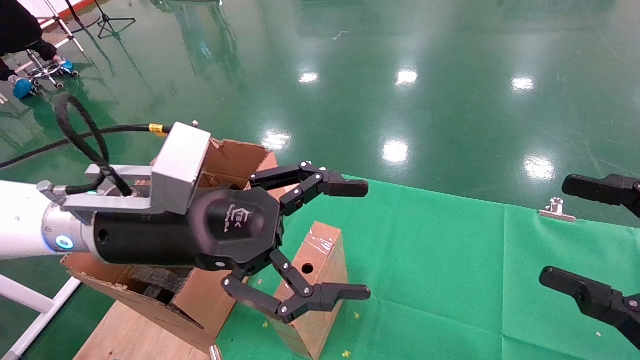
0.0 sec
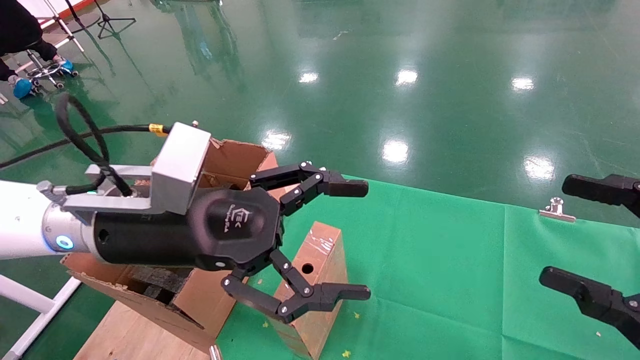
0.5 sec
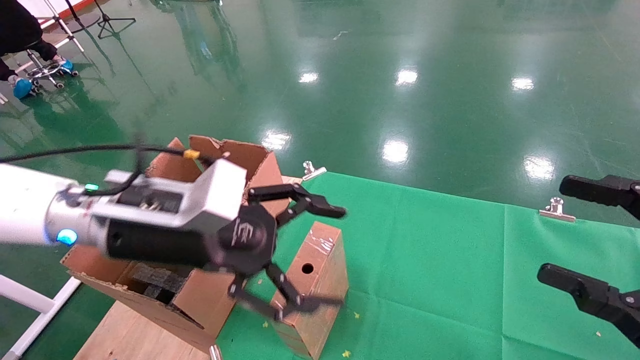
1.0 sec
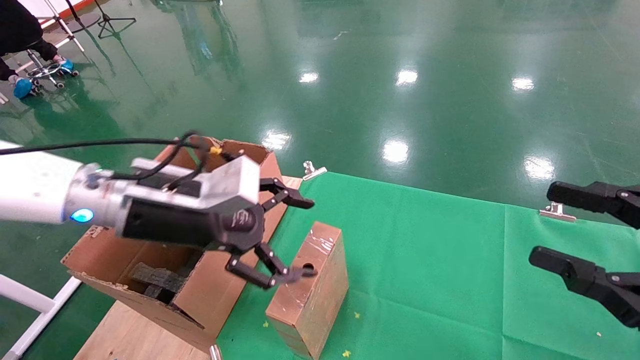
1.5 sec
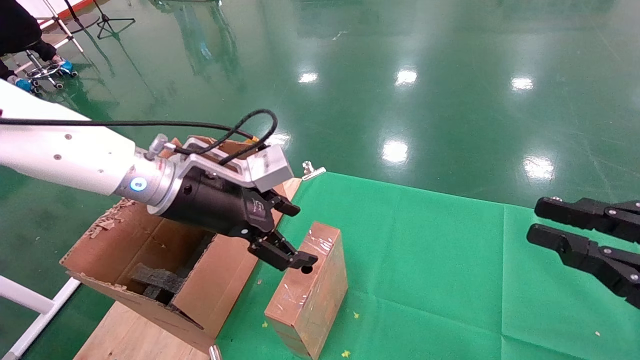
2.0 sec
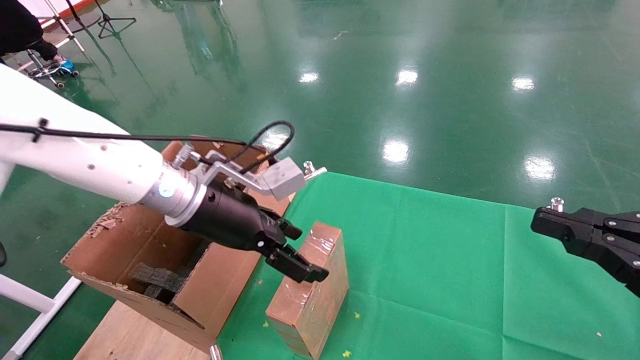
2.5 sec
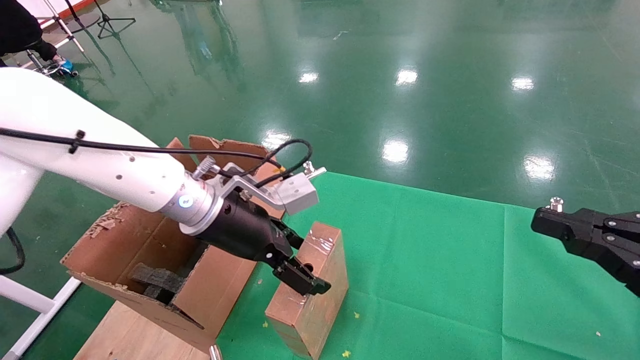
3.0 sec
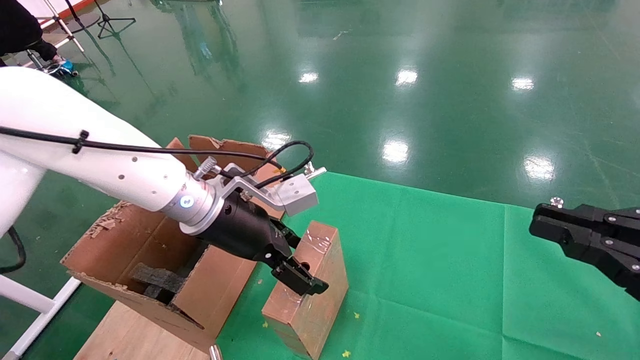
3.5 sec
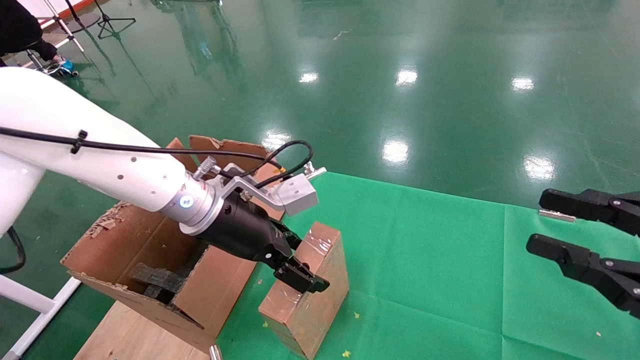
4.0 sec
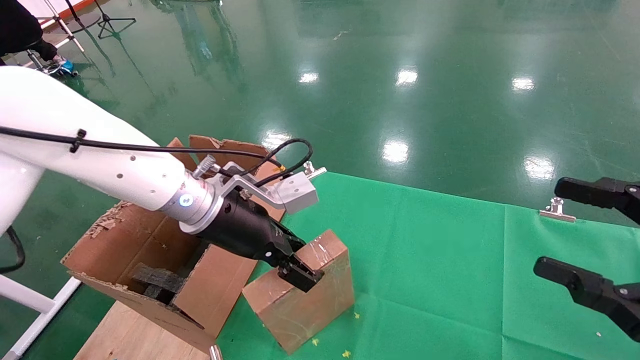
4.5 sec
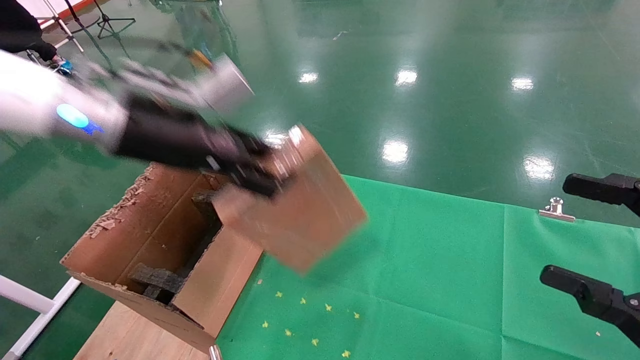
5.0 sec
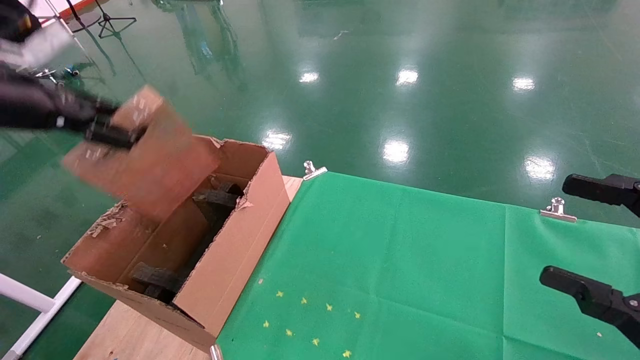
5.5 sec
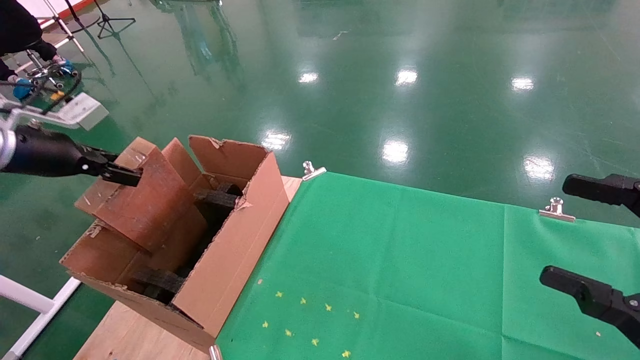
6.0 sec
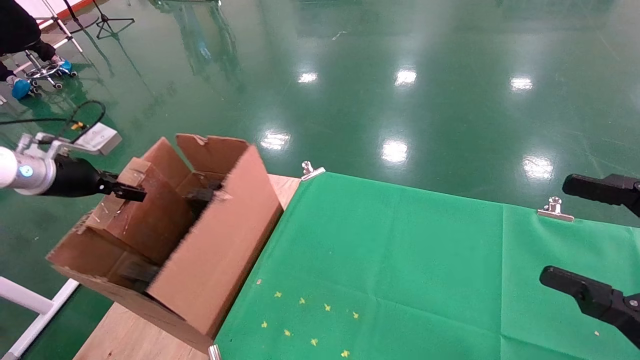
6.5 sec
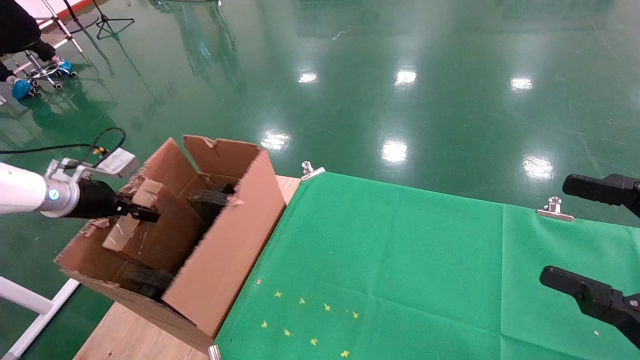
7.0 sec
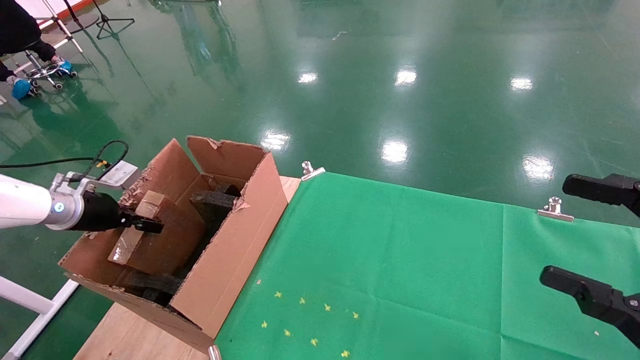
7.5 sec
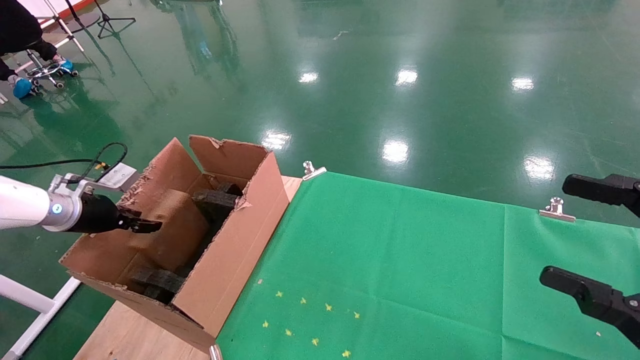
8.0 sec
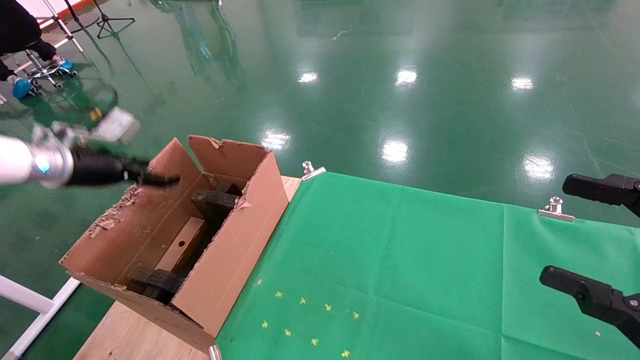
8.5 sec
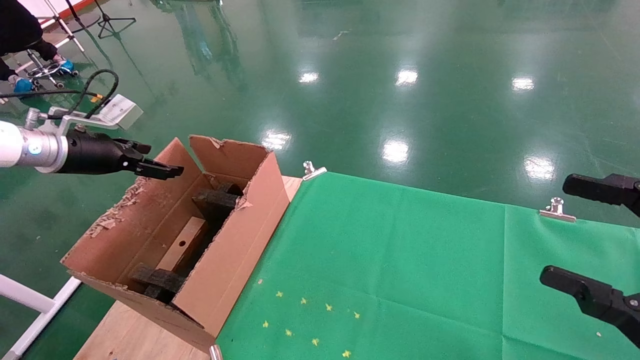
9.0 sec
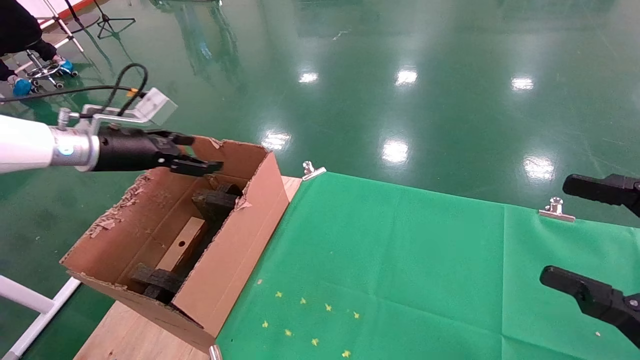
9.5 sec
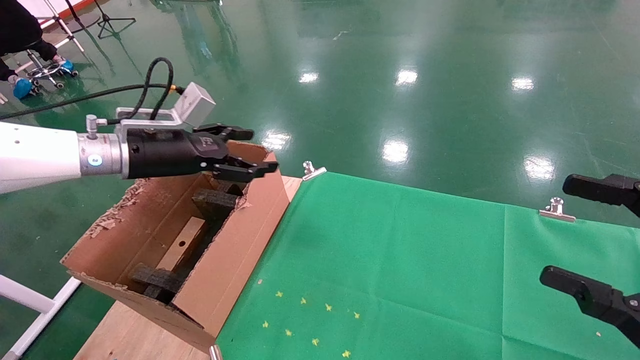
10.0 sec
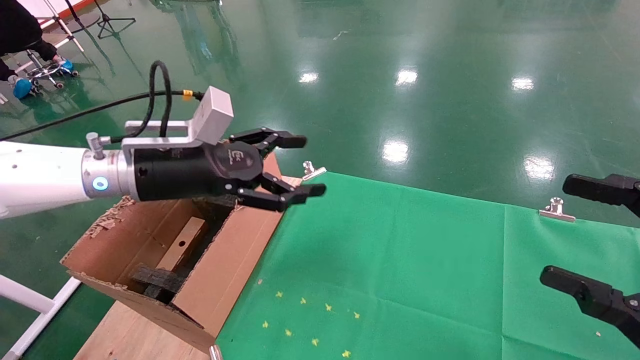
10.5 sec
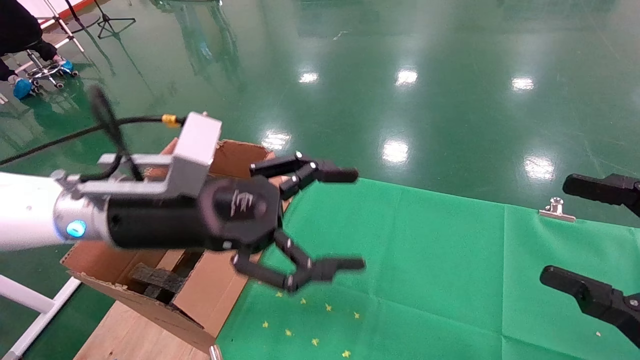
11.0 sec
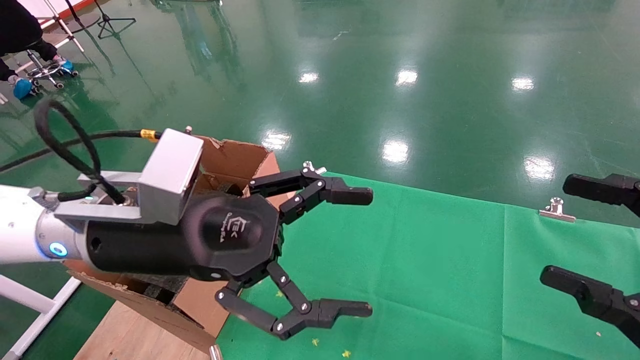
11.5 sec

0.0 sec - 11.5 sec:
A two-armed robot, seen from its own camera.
Task of the whole recording: using a robotic arm to pick up a cardboard box and palace it the carton.
Step, 1.0 sec - 4.0 sec: Pick up the mouse and the power cord paper box.
Step, 4.5 sec - 8.0 sec: Place the mouse and the power cord paper box into the container.
0.0 sec - 2.0 sec: The left gripper is displaced forward by some 10 cm; the right gripper closes its fingers.
2.0 sec - 4.0 sec: There are only small adjustments of the grippers.
4.0 sec - 6.0 sec: The right gripper opens its fingers; the left gripper moves to the left, about 30 cm, and closes.
6.0 sec - 7.5 sec: The left gripper is displaced downward by roughly 15 cm.
7.5 sec - 9.5 sec: The left gripper goes approximately 15 cm upward and to the right, and opens up.
9.5 sec - 11.5 sec: The left gripper moves to the right and backward, some 25 cm.

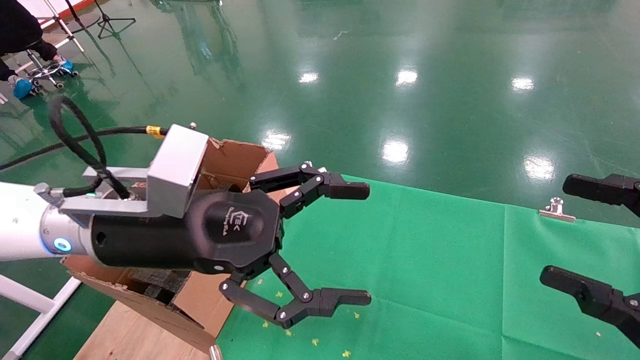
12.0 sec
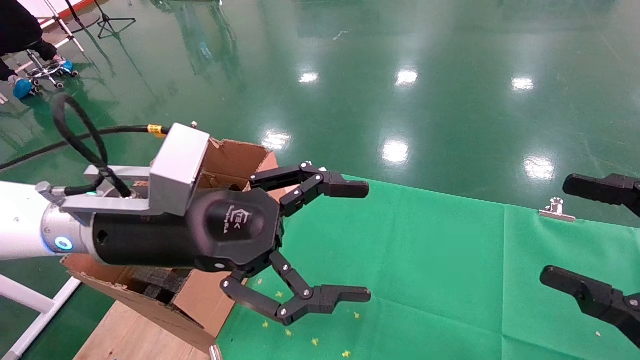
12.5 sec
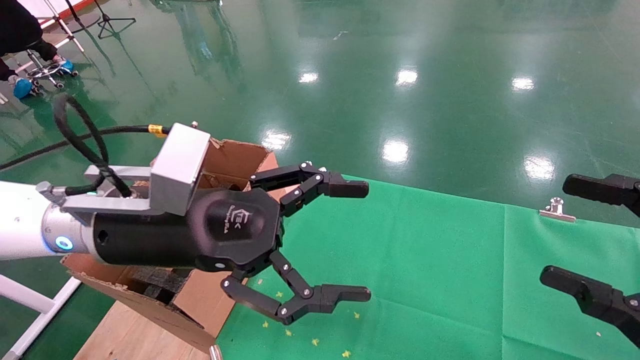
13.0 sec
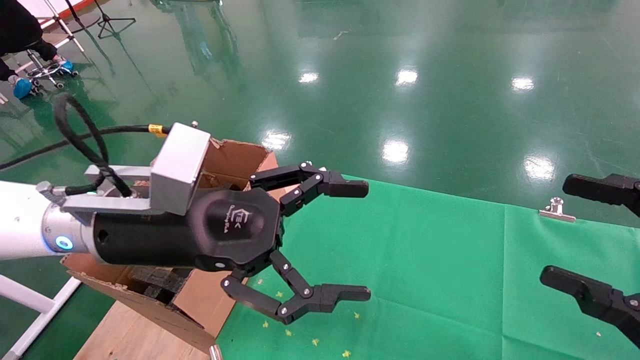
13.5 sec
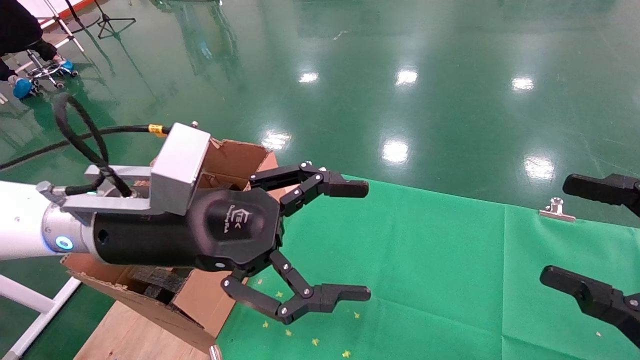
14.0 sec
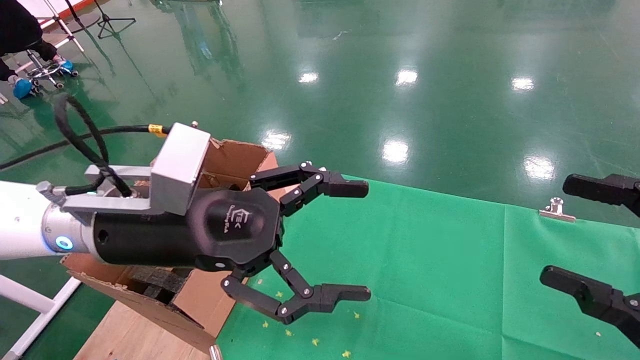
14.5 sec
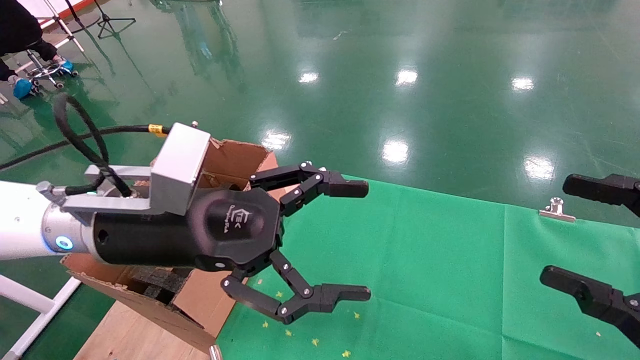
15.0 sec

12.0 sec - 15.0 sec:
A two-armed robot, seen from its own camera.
Task of the whole recording: using a robotic arm to pick up a cardboard box and palace it the carton.
12.0 sec - 15.0 sec: Neither gripper changes place.
